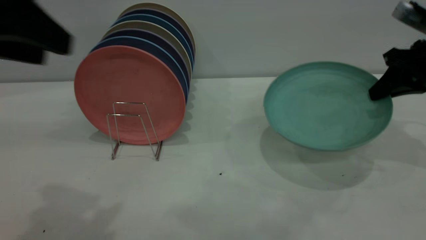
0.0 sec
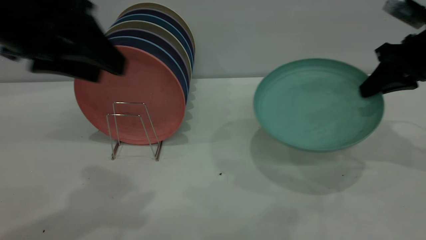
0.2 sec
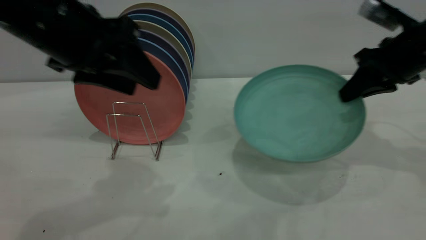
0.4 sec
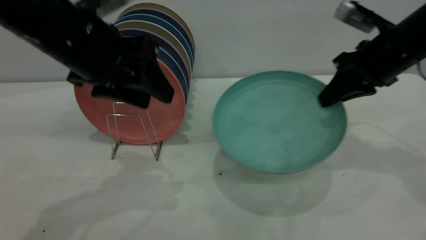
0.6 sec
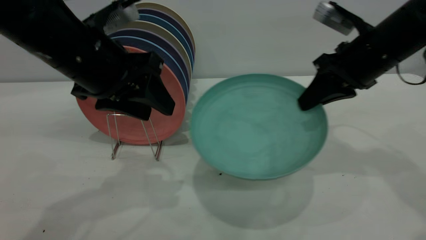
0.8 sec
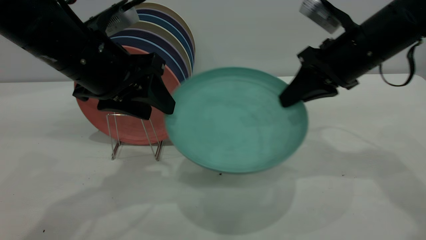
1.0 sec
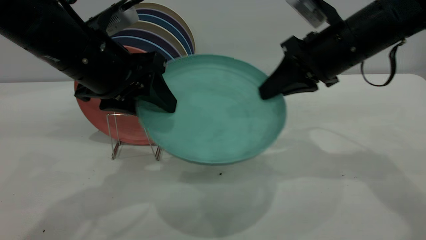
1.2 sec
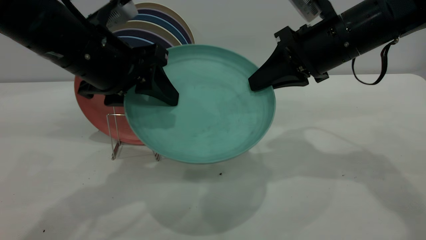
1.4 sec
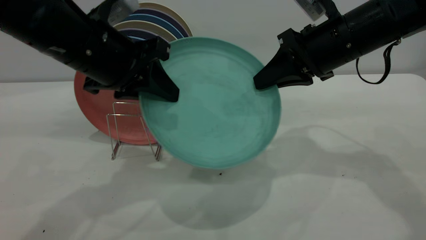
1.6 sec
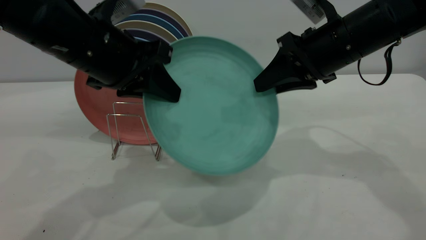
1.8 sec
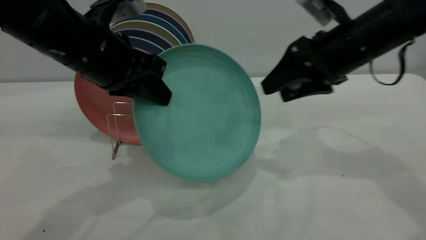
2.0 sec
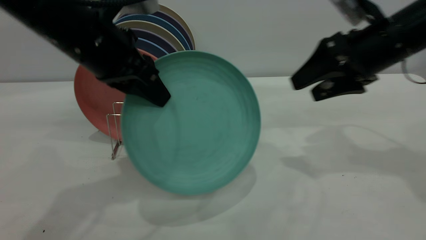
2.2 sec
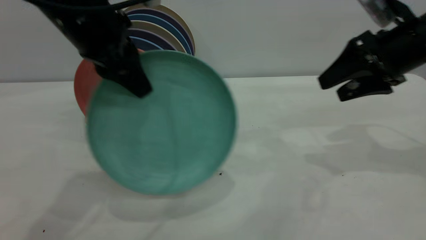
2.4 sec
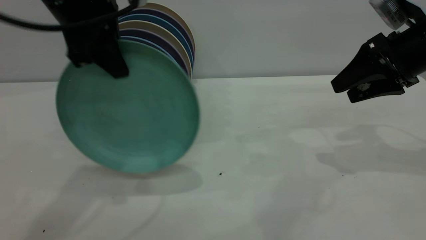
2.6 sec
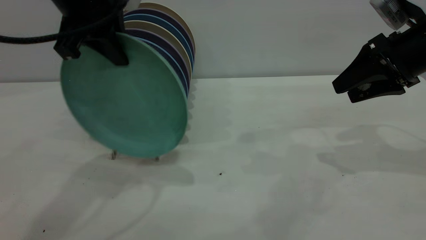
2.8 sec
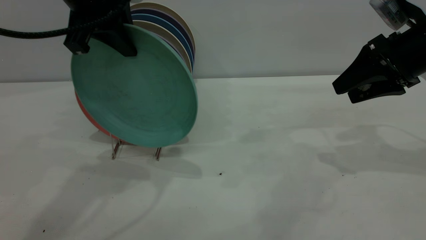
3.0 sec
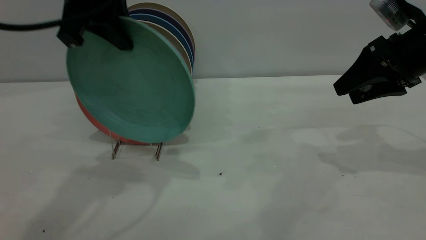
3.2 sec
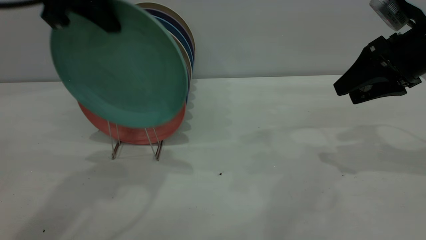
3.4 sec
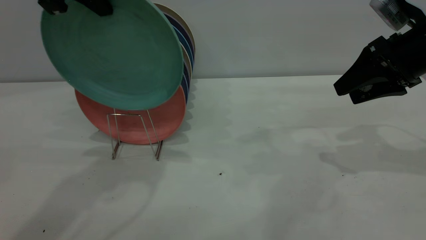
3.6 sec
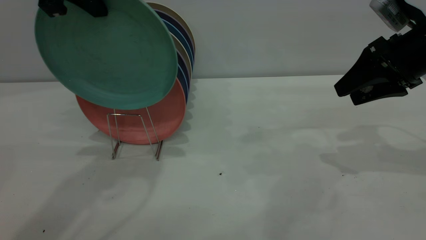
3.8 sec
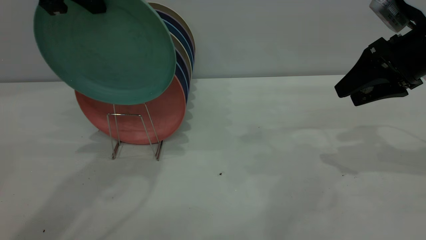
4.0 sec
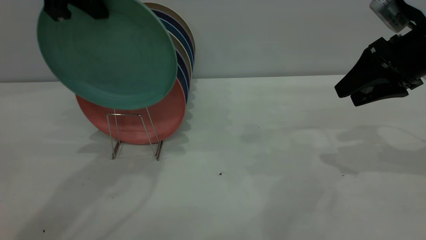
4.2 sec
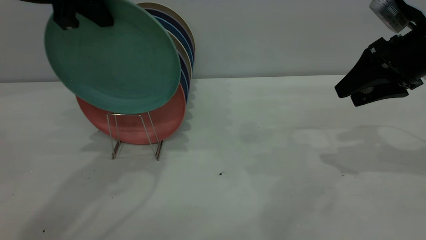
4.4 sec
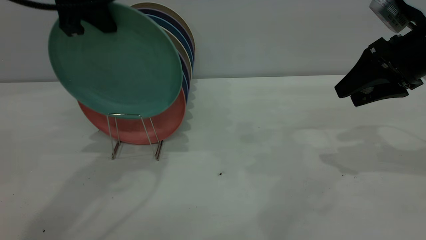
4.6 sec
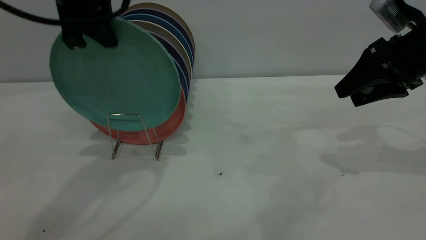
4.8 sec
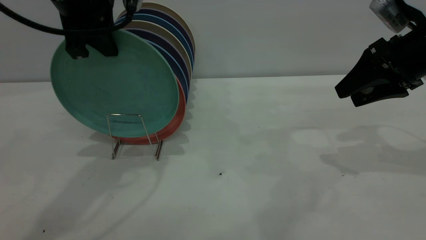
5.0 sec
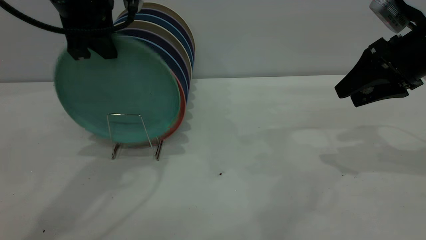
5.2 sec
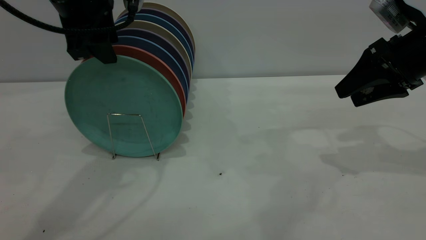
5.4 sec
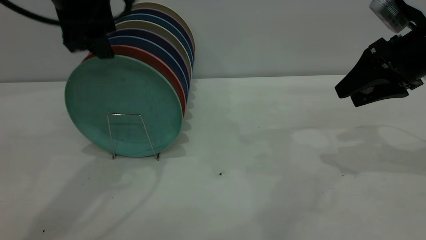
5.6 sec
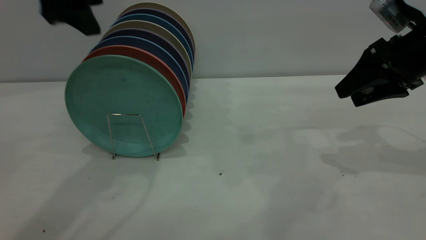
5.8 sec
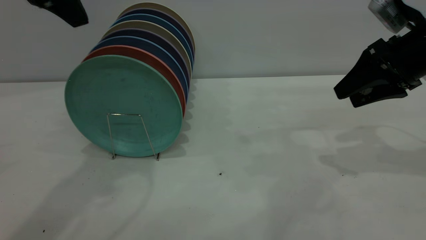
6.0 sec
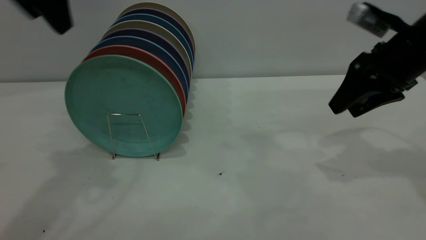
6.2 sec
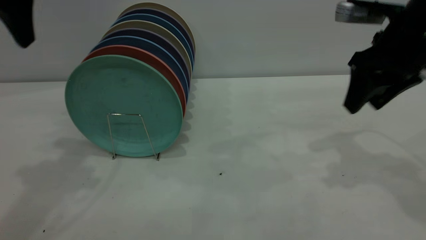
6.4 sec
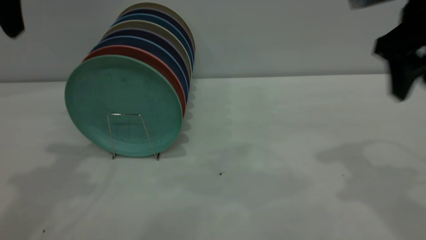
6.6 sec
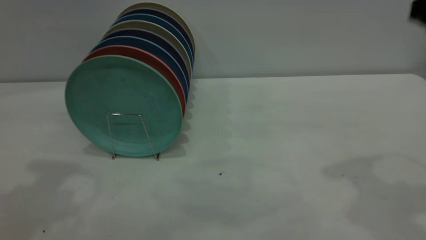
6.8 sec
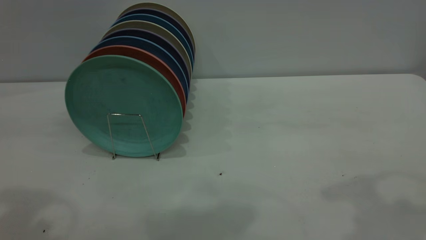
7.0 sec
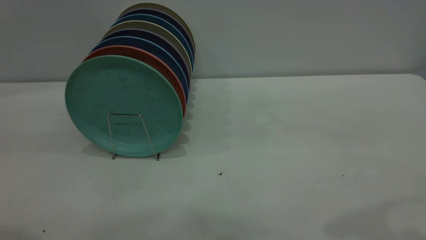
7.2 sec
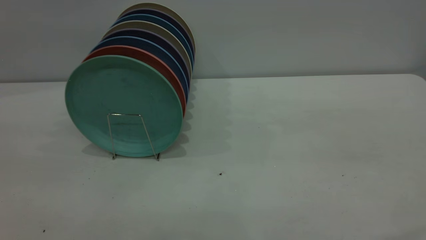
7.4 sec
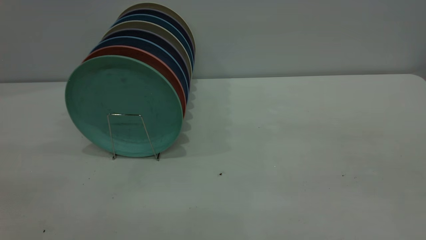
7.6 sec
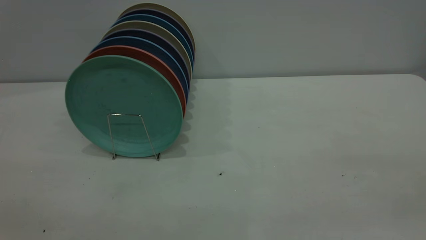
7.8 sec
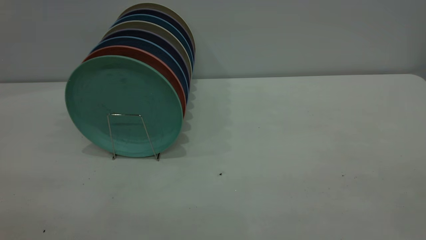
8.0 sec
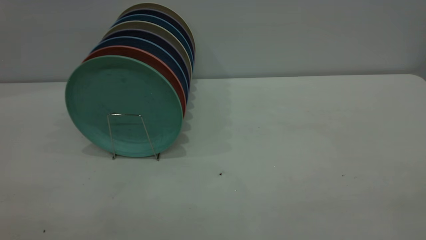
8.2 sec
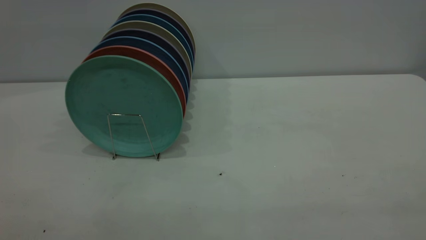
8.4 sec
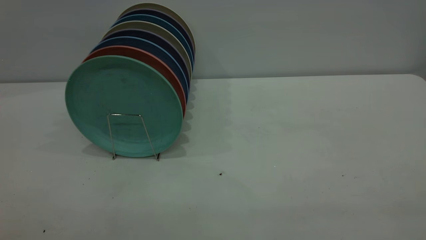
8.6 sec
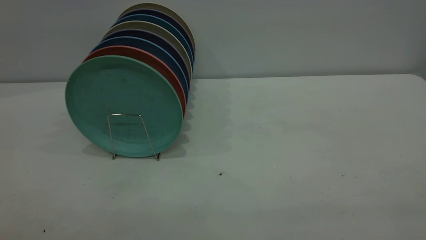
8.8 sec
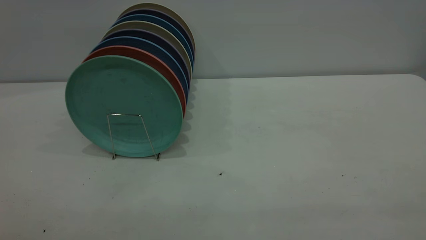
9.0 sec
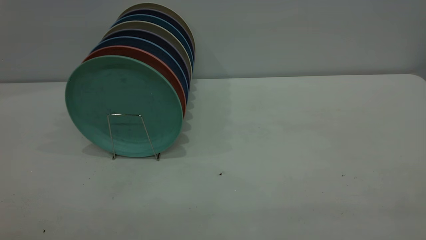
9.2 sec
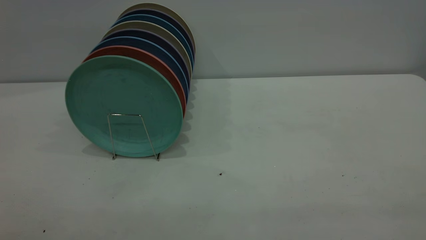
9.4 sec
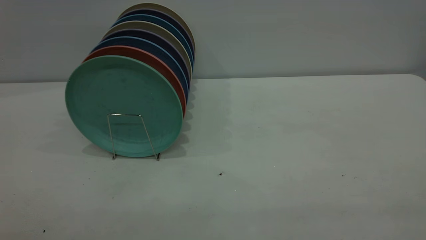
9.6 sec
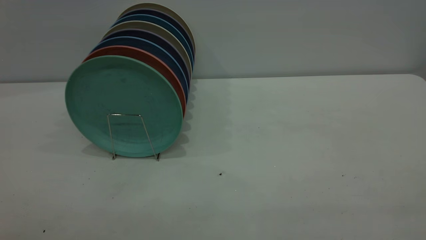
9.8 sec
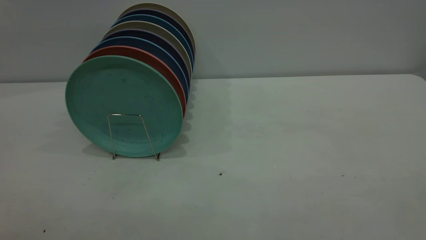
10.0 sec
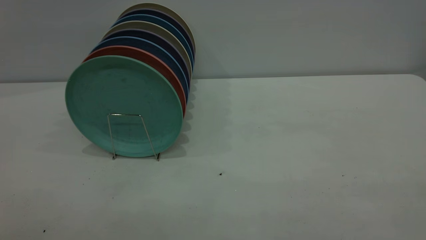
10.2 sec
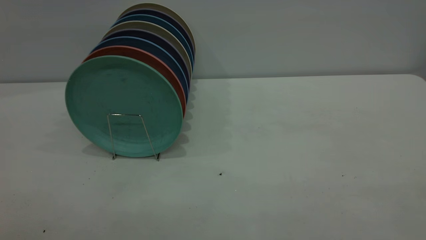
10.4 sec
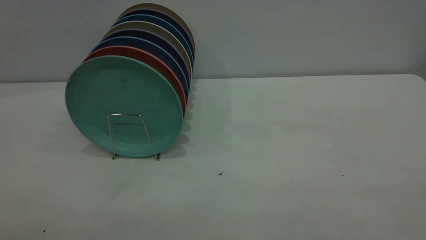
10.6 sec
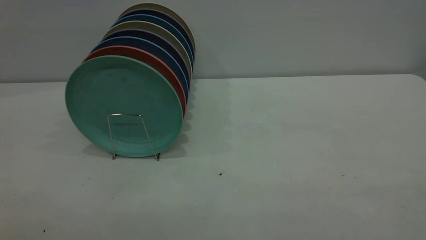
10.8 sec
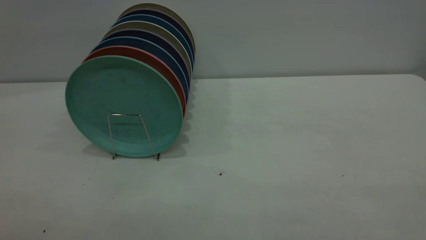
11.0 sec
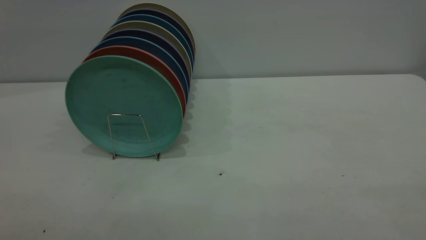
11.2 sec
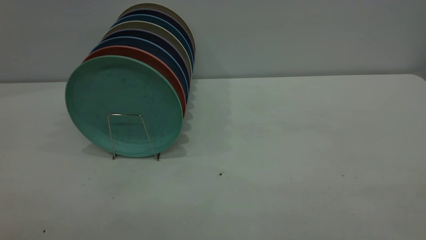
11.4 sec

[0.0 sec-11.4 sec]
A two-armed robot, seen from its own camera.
Task of the whole recording: the right gripper grasp the green plate, the right gripper pass the green plate to the left gripper, and the left gripper place the green plate on the plate rack.
Step, 0.0 sec to 2.0 sec: Pass the plate from the right gripper to the left gripper.
Step, 2.2 sec to 5.6 sec: Place the plate on the shelf.
0.0 sec to 1.4 sec: The left gripper is displaced downward, forward and to the right by some 15 cm. The right gripper heads to the left, covering roughly 15 cm.
1.4 sec to 2.8 sec: The right gripper is displaced to the right by about 15 cm, and opens its fingers, while the left gripper is displaced upward by roughly 10 cm, and closes its fingers.
2.8 sec to 4.2 sec: There are only small adjustments of the grippers.
4.2 sec to 5.6 sec: The left gripper opens its fingers.
5.6 sec to 7.2 sec: The left gripper shifts about 25 cm backward and to the left. Meanwhile the right gripper goes about 30 cm upward and backward.

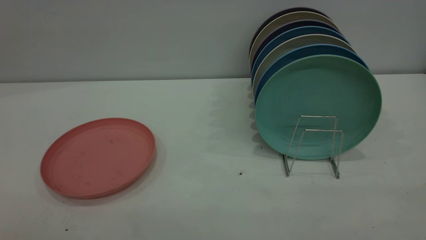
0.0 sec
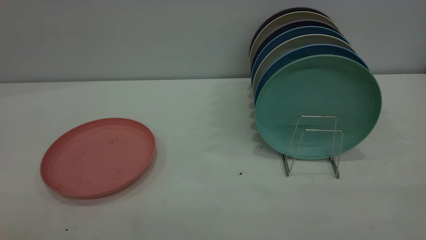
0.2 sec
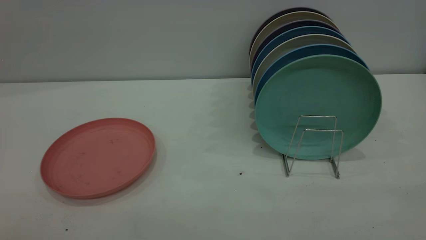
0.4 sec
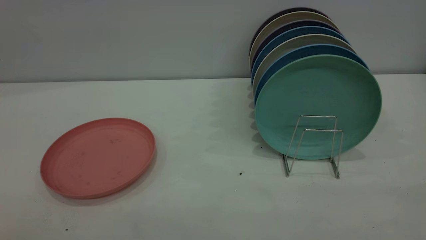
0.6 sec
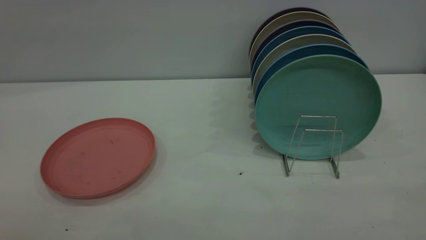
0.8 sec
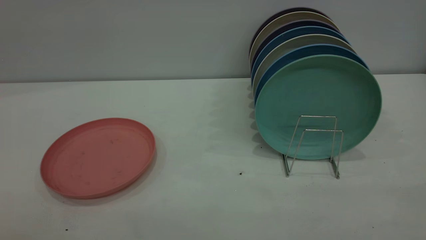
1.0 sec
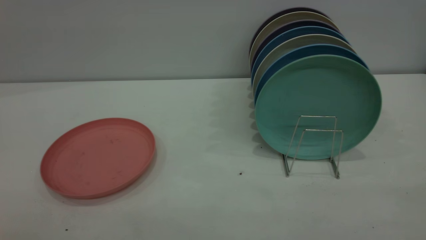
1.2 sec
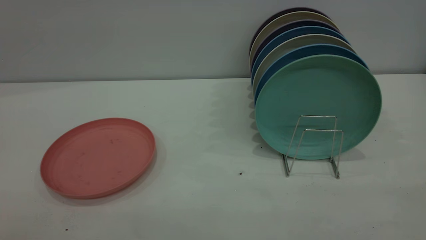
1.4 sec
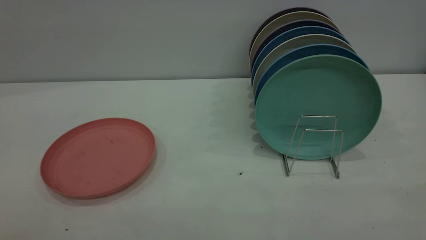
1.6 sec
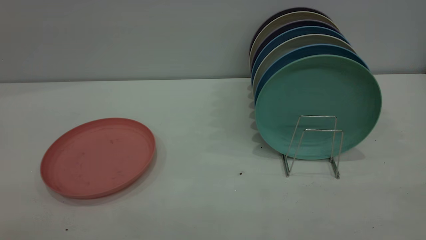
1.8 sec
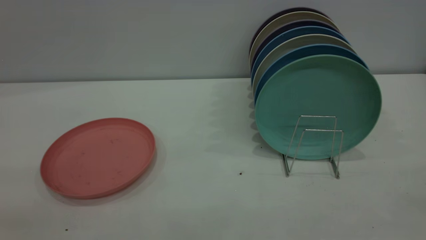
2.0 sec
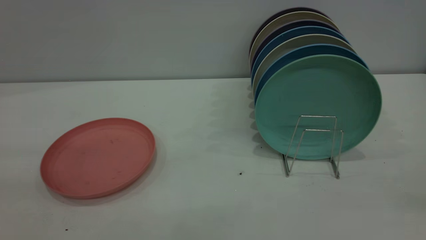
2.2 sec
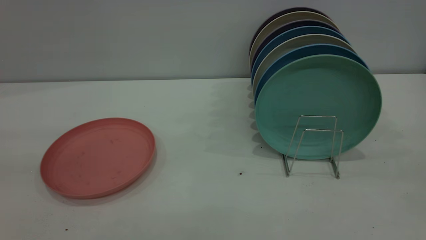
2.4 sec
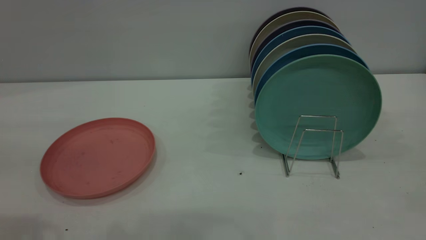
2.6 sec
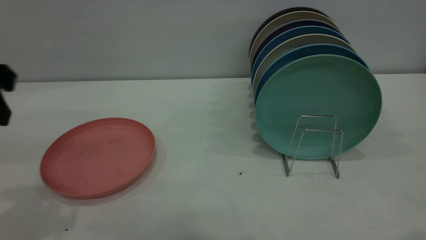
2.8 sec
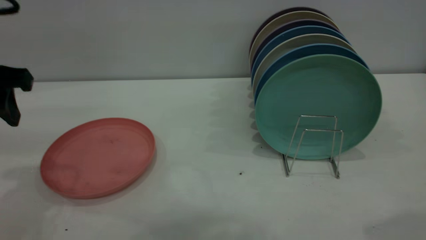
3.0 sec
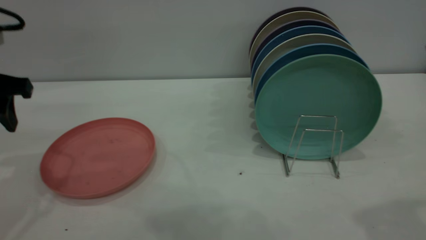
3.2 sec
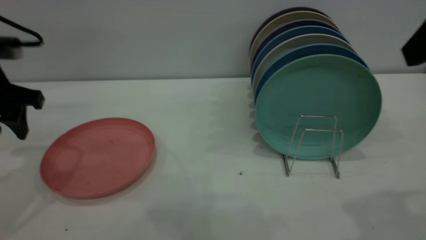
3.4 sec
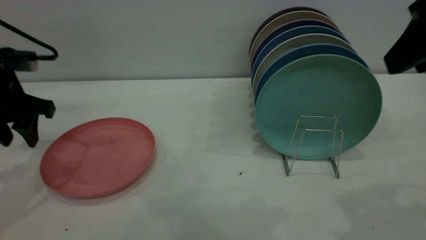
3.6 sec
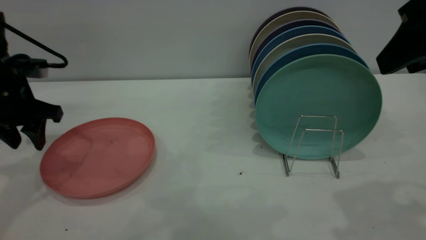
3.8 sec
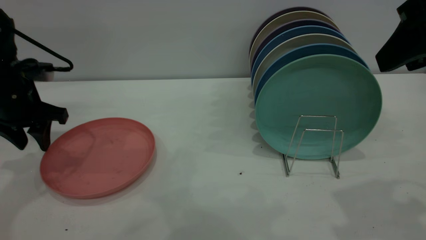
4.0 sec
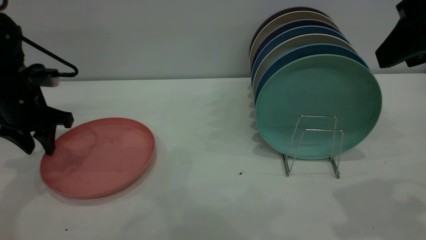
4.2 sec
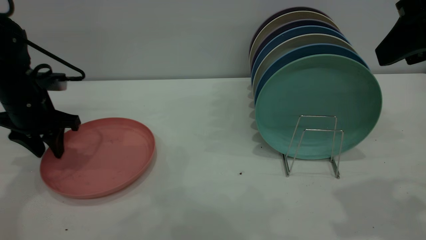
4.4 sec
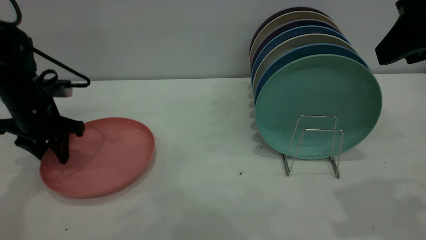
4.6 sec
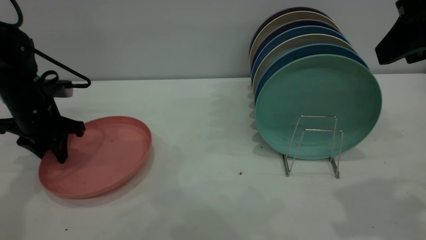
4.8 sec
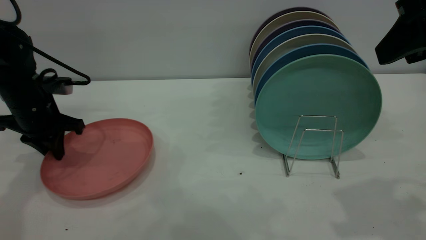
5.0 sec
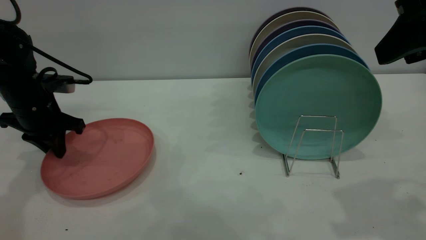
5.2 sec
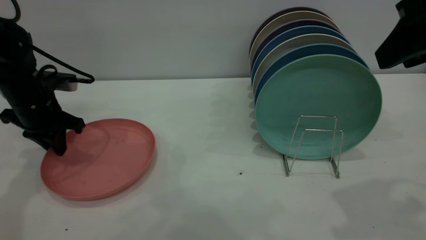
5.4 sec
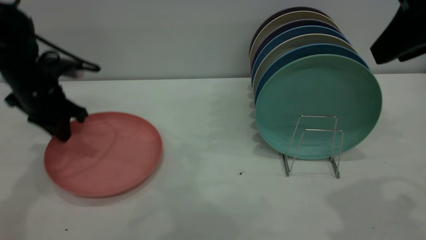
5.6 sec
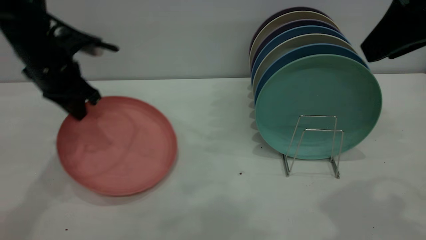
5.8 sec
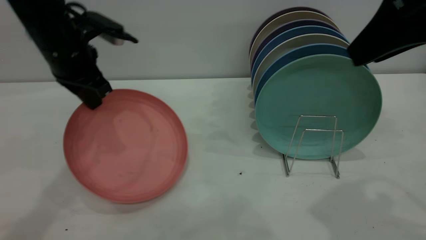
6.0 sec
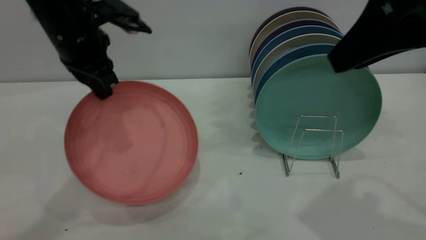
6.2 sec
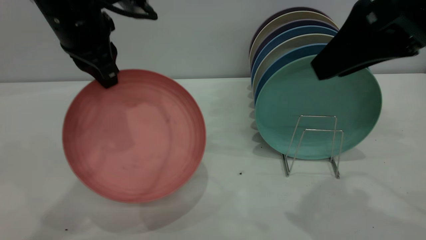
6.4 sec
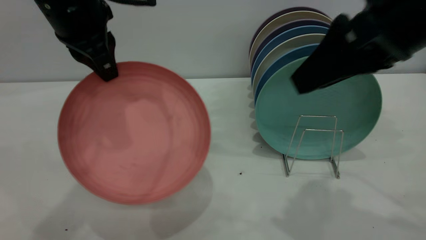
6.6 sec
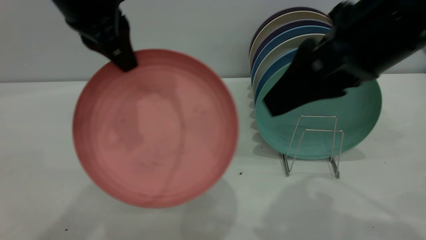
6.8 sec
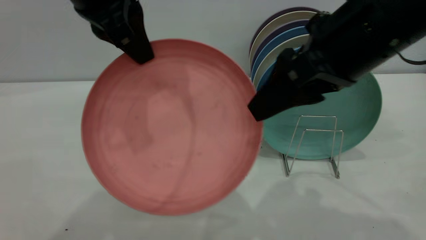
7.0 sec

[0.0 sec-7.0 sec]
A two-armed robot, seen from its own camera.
Task of the whole recording: put the plate on the plate rack.
Step, 0.0 sec to 6.0 sec: Pick up the plate with the left gripper.
1.4 sec to 2.8 sec: The left gripper goes approximately 25 cm forward.
2.8 sec to 4.2 sec: The right gripper shifts some 10 cm forward and downward; the left gripper is displaced forward and downward by roughly 20 cm.
4.2 sec to 5.6 sec: The left gripper closes its fingers.
5.6 sec to 7.0 sec: The right gripper shifts approximately 10 cm to the left and downward, and opens. The left gripper travels upward, to the right and backward by roughly 25 cm.
